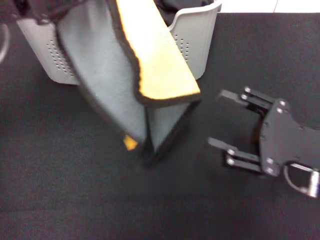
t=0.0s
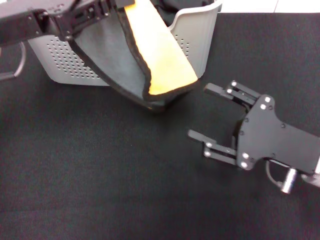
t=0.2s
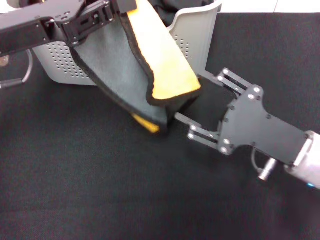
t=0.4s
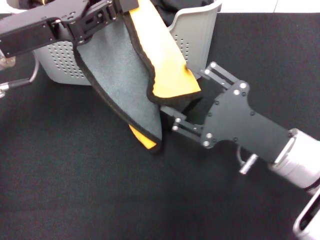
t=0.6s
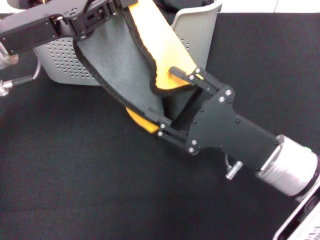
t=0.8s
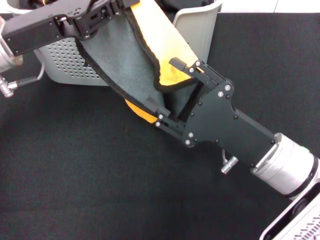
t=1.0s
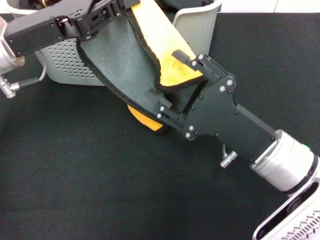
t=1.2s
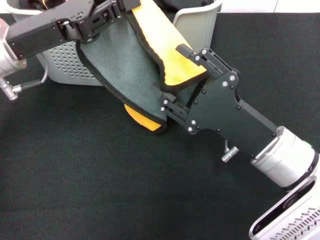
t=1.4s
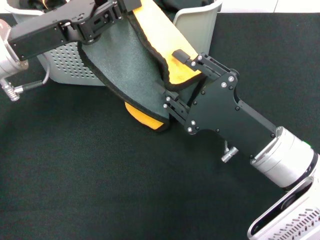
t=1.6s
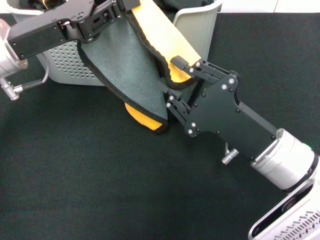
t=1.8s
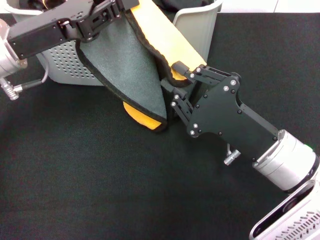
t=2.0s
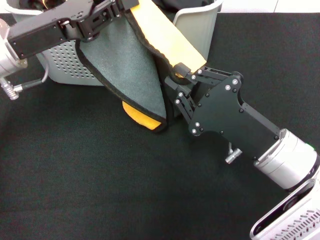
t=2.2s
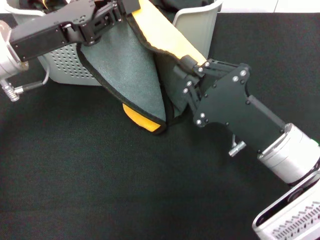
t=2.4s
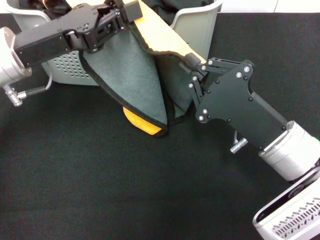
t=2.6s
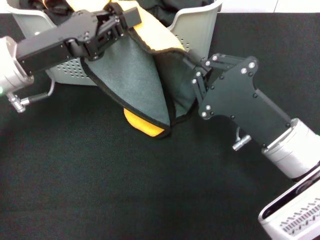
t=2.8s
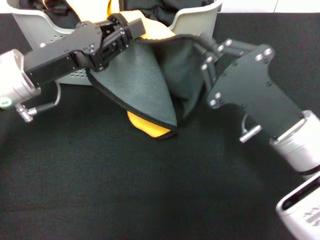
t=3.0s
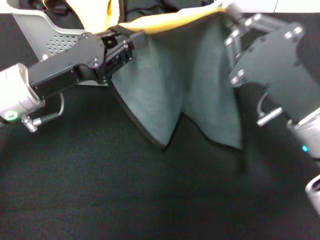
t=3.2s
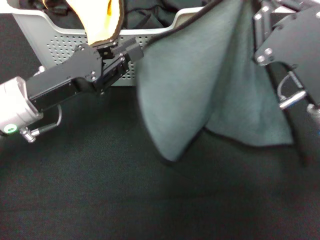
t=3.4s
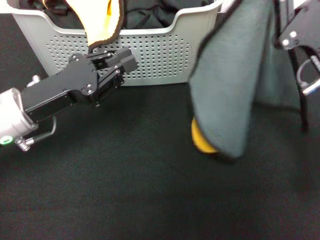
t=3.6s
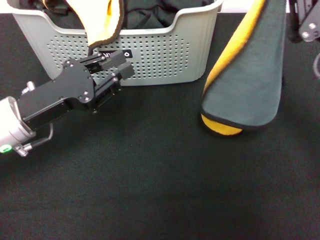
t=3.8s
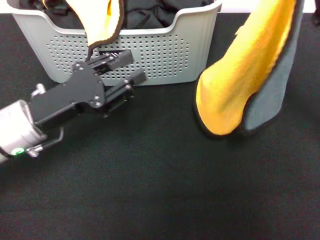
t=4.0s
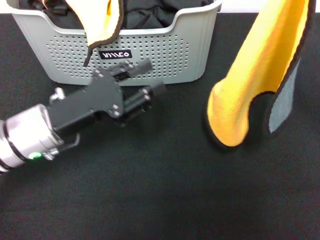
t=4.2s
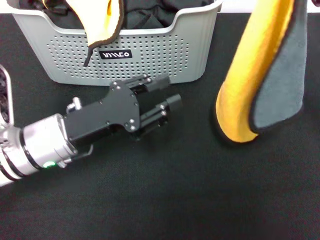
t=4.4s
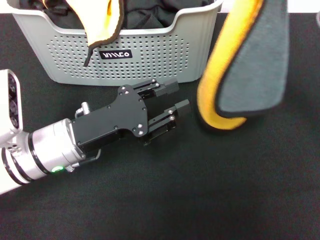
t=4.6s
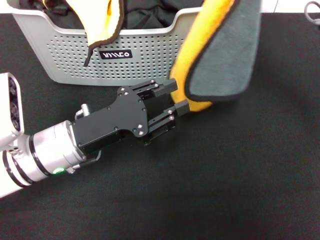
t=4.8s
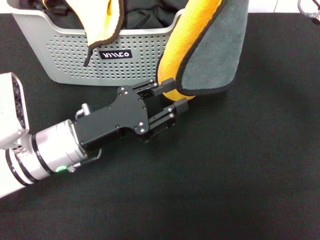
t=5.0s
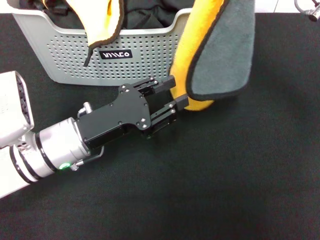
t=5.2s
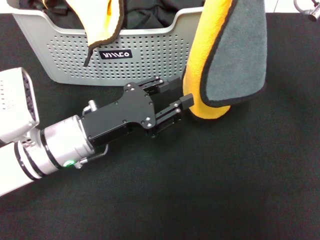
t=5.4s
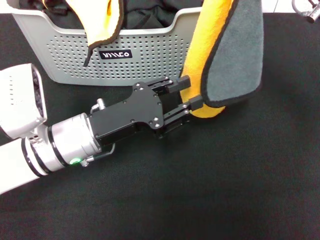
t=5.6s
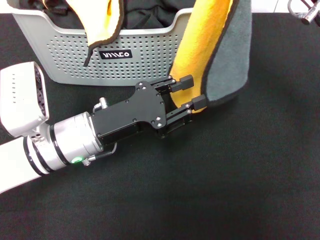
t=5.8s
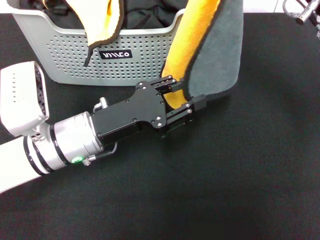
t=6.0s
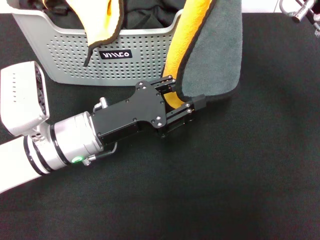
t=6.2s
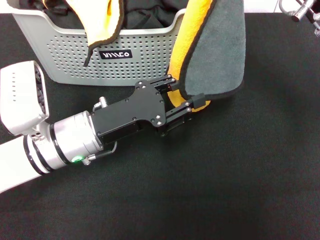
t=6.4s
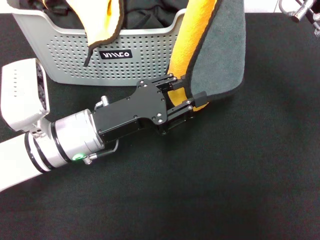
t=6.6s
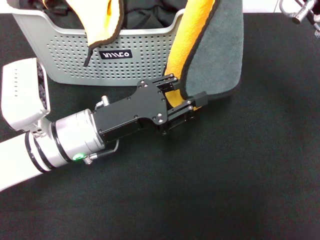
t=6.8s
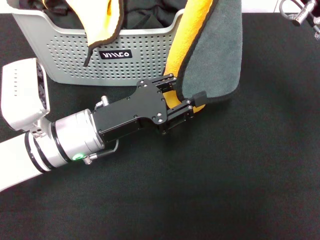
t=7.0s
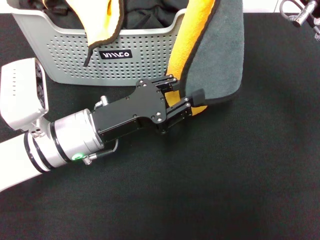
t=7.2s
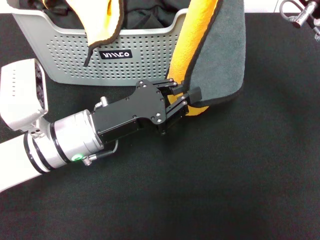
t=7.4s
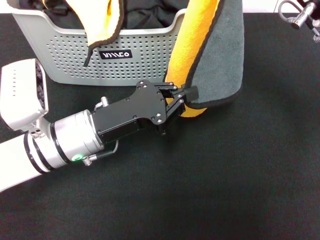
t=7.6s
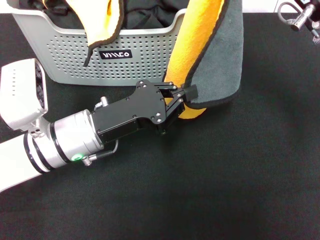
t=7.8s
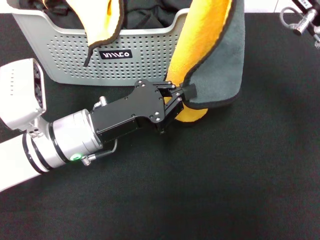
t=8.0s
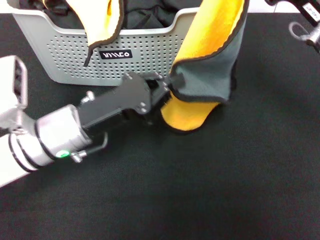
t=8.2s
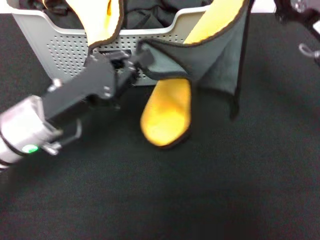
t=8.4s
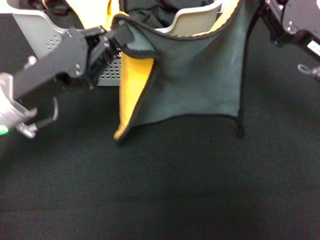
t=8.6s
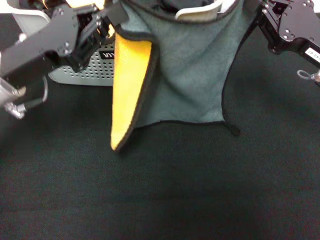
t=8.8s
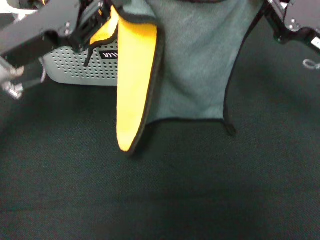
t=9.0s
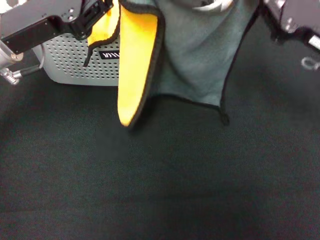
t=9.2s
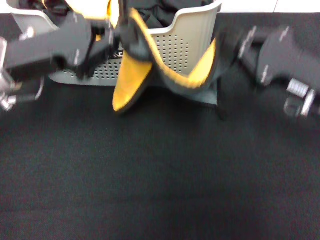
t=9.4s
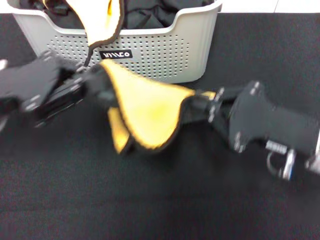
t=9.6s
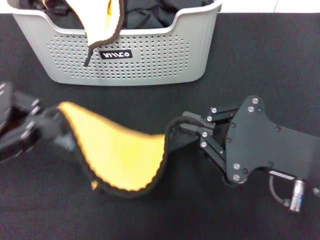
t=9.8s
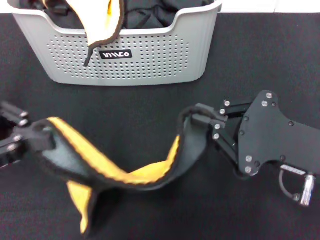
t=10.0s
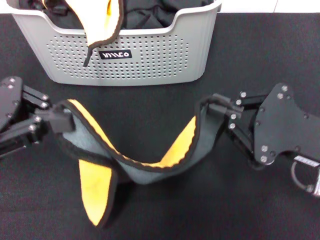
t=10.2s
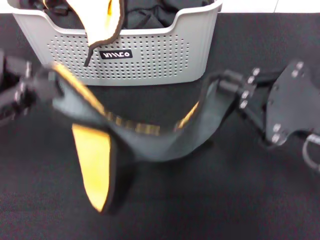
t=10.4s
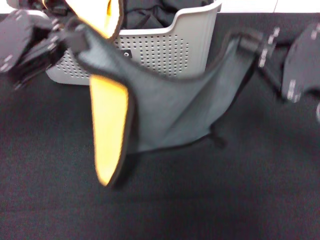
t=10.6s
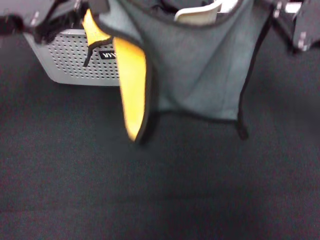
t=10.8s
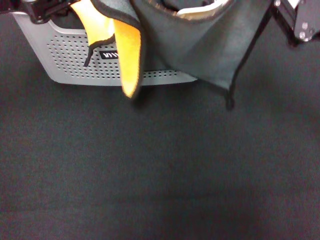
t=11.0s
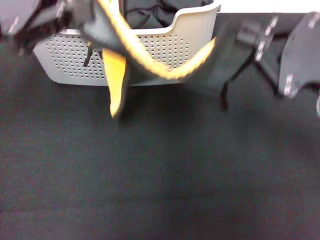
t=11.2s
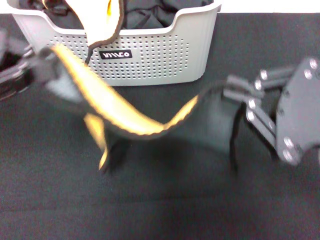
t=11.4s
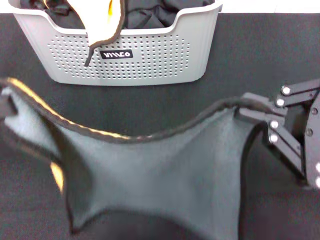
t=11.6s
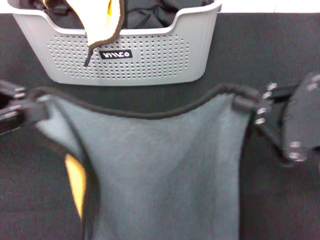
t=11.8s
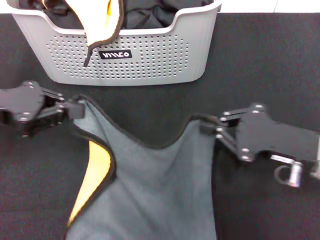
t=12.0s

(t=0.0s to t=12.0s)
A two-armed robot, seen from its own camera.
Task of the whole recording: pick up the towel from the storage box and lay it flat on the black tablecloth.
Step, t=0.0s - t=2.6s: Spread the towel flat with the left gripper.
t=0.0s - t=1.6s: The right gripper heads to the left, covering roughly 10 cm; the left gripper is displaced downward by approximately 5 cm.
t=1.6s - t=3.0s: The right gripper closes its fingers.
t=3.0s - t=4.4s: The right gripper shifts some 15 cm upward, to the right and forward; the left gripper moves downward, roughly 5 cm, and opens.
t=4.4s - t=6.0s: The right gripper moves some 5 cm.
t=6.0s - t=7.6s: Both grippers stay about where they are.
t=7.6s - t=9.0s: The left gripper shifts about 10 cm upward and to the left. Meanwhile the right gripper is displaced to the right by roughly 5 cm.
t=9.0s - t=10.4s: The right gripper moves backward, some 10 cm; the left gripper goes roughly 10 cm backward and to the left.
t=10.4s - t=12.0s: The right gripper moves forward and backward over about 10 cm, changing direction 2 times. The left gripper moves forward and backward over about 10 cm, changing direction 2 times.

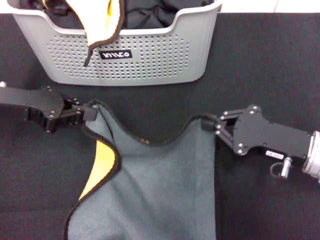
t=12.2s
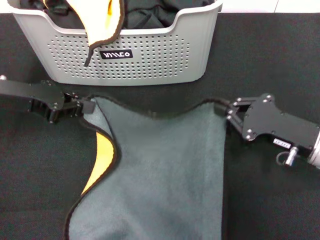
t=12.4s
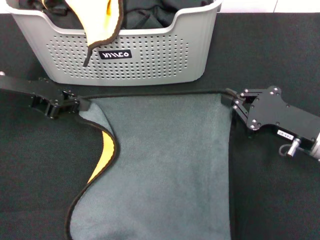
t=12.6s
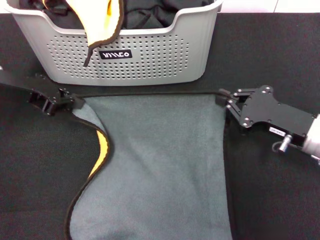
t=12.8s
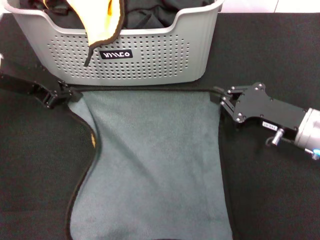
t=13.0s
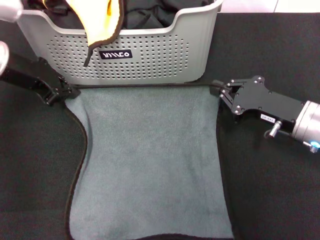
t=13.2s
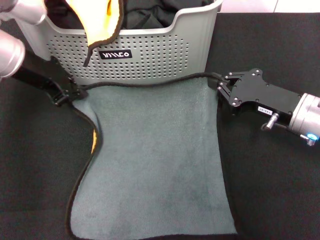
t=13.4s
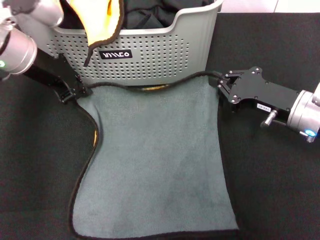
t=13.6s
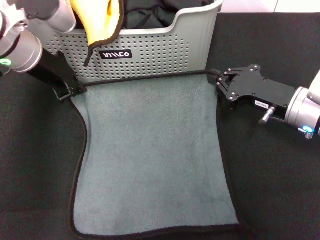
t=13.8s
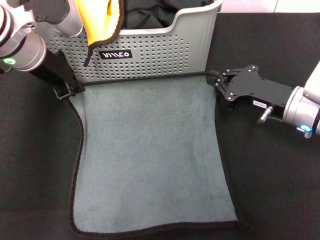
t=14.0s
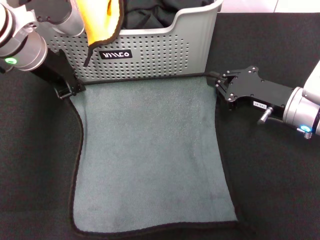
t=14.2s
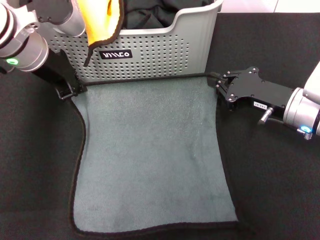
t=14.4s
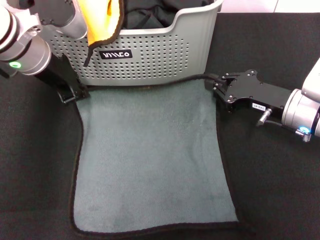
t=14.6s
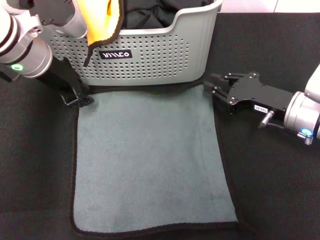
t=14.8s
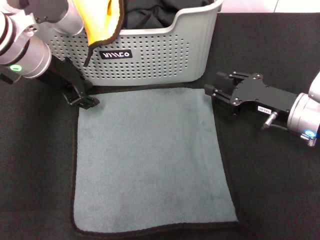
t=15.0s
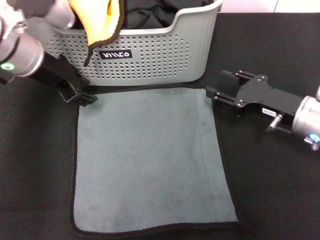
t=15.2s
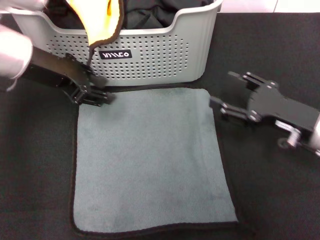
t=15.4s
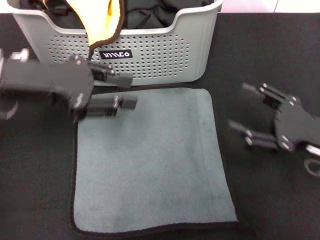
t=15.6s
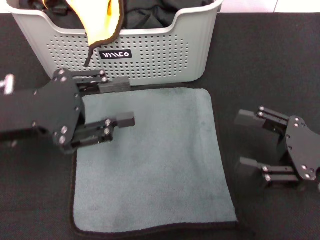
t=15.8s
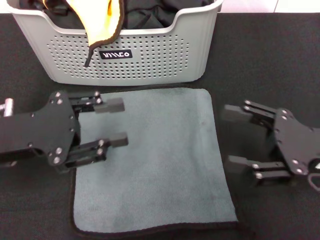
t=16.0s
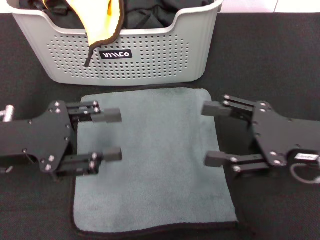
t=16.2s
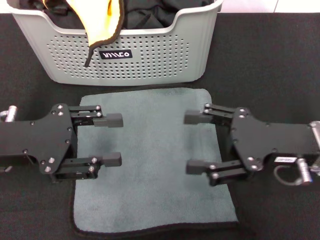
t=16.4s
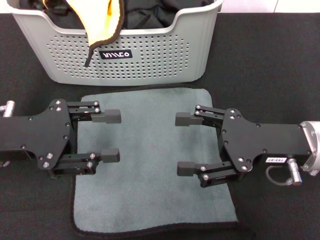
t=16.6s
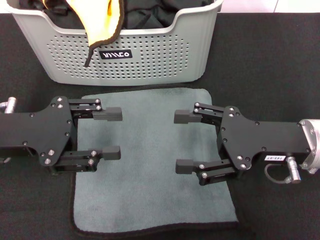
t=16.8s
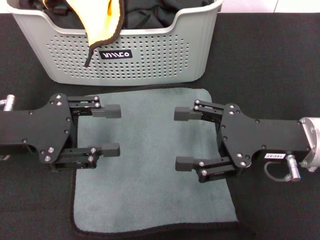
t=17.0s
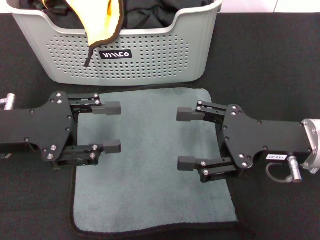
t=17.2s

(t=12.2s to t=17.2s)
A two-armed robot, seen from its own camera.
Task of the whole recording: pick up the towel from the storage box and lay it flat on the black tablecloth.
Step, t=12.2s - t=14.8s: Spread the towel flat with the right gripper.
t=12.2s - t=13.8s: The right gripper goes roughly 5 cm forward. The left gripper moves forward and to the right, some 10 cm.
t=13.8s - t=15.6s: The right gripper moves backward and to the right, about 10 cm, and opens up; the left gripper travels backward by roughly 10 cm, and opens its fingers.
t=15.6s - t=17.2s: The left gripper shifts about 5 cm downward, while the right gripper moves to the left, roughly 5 cm.
